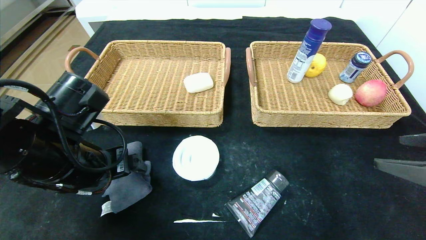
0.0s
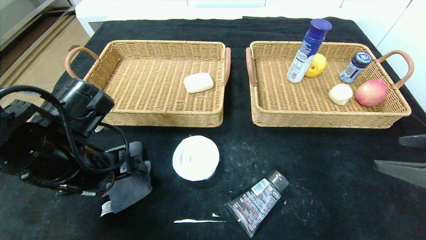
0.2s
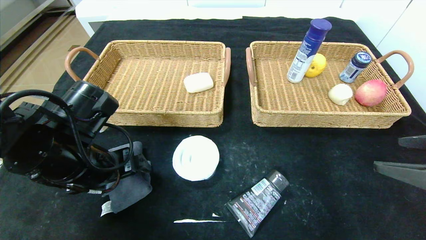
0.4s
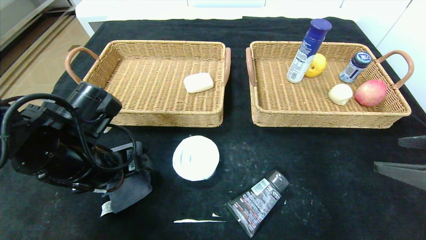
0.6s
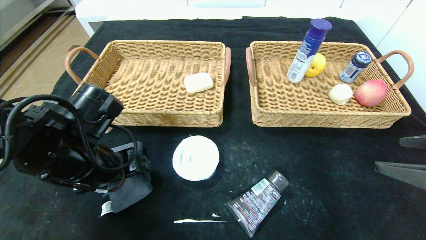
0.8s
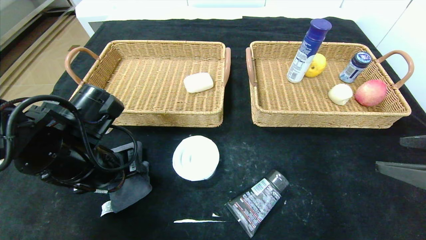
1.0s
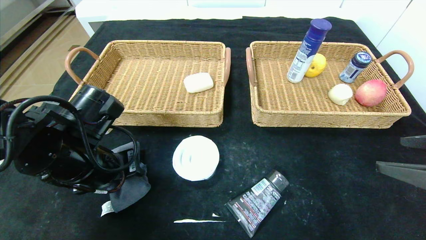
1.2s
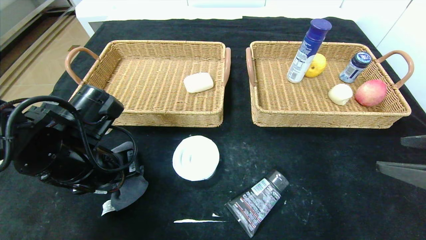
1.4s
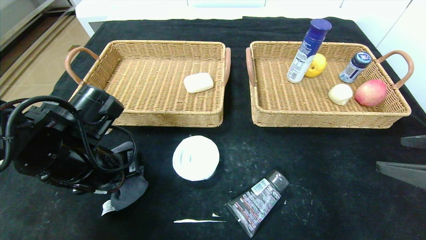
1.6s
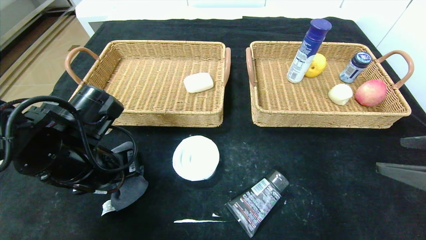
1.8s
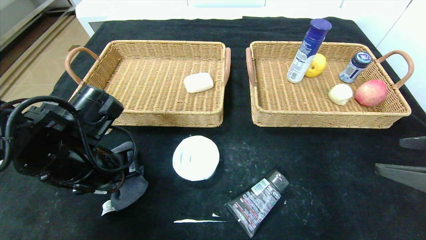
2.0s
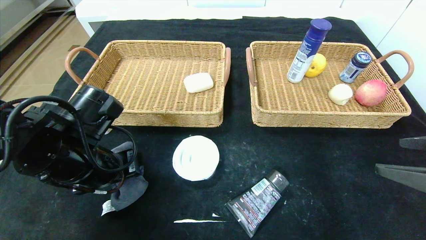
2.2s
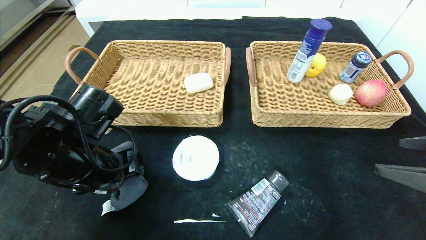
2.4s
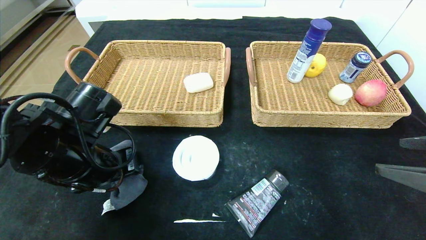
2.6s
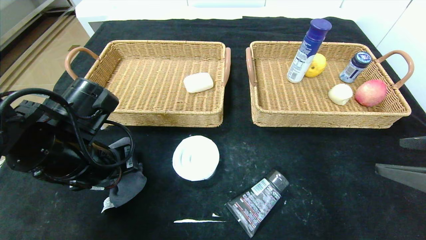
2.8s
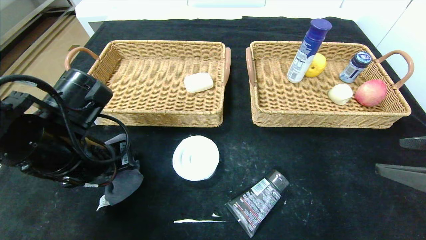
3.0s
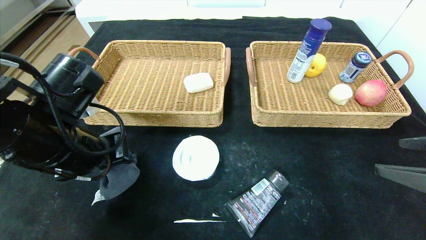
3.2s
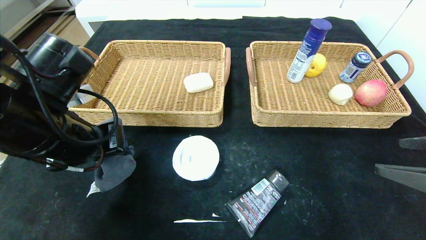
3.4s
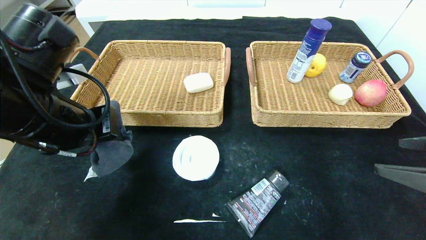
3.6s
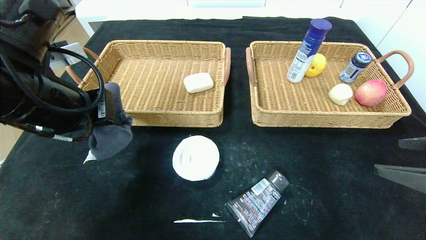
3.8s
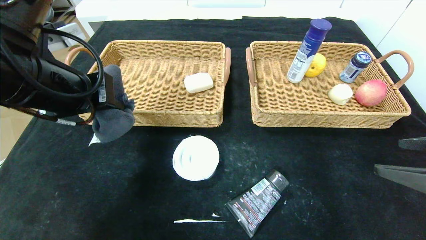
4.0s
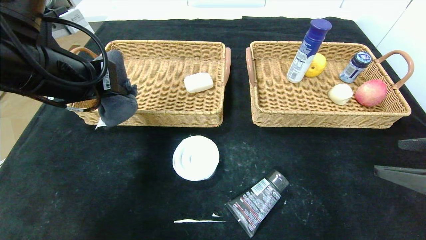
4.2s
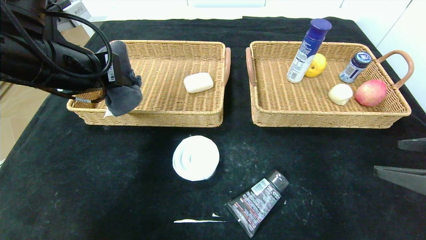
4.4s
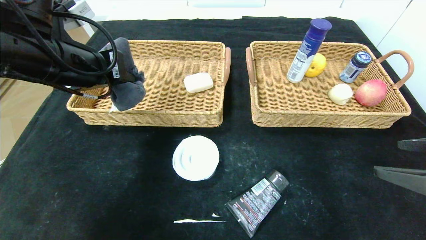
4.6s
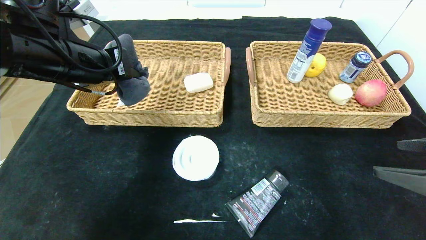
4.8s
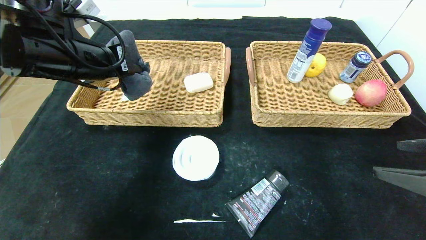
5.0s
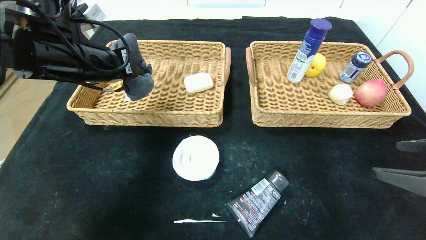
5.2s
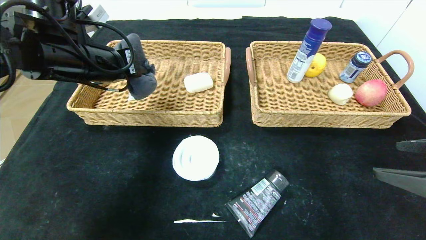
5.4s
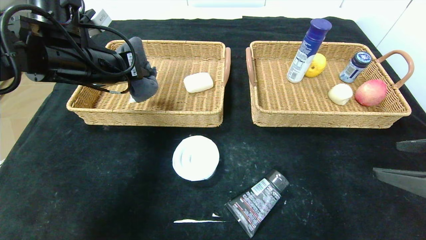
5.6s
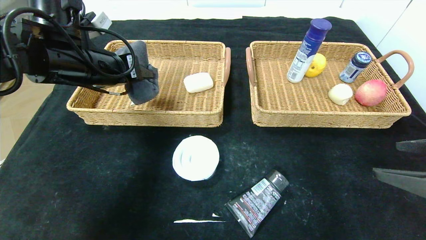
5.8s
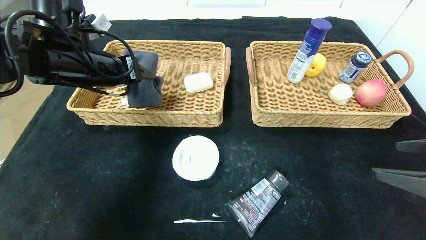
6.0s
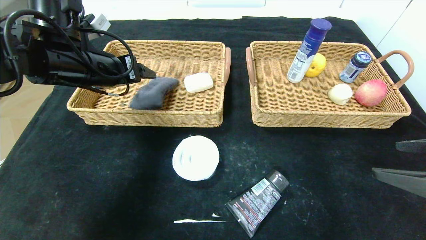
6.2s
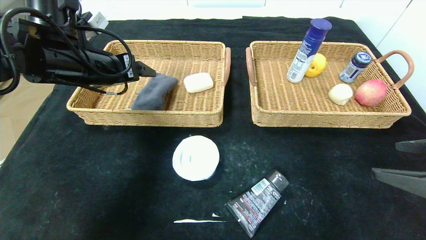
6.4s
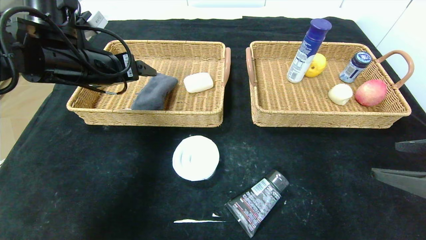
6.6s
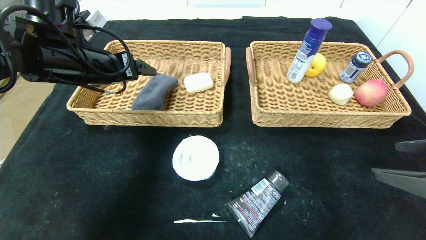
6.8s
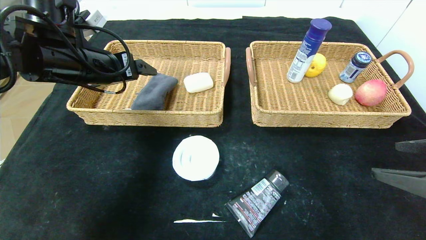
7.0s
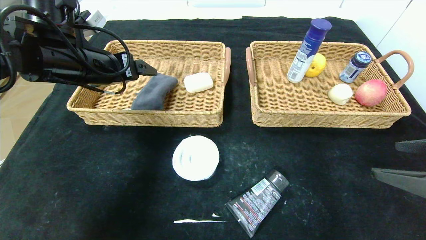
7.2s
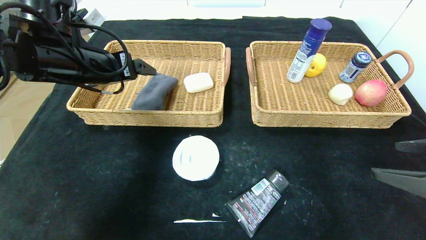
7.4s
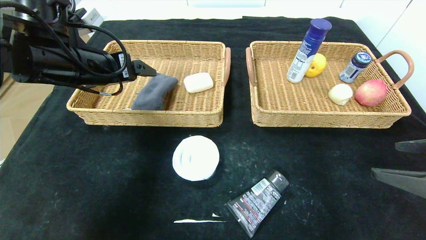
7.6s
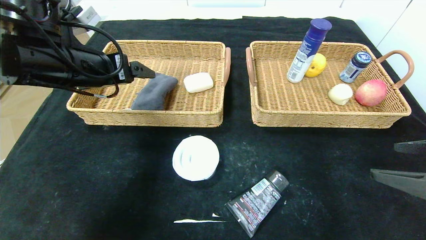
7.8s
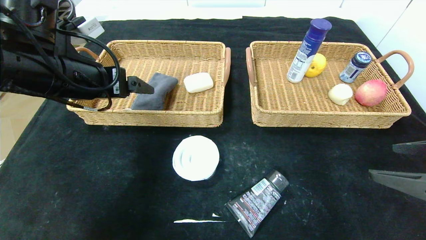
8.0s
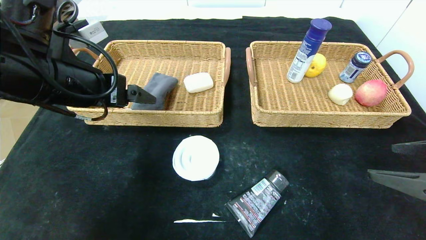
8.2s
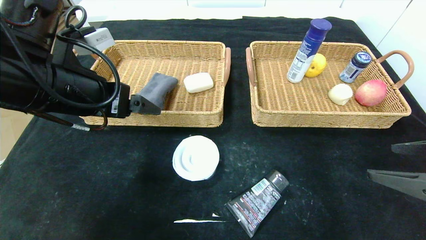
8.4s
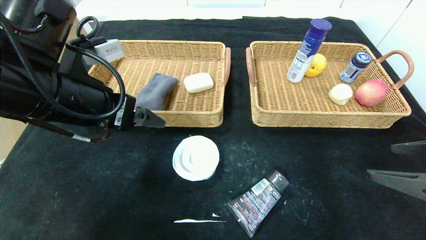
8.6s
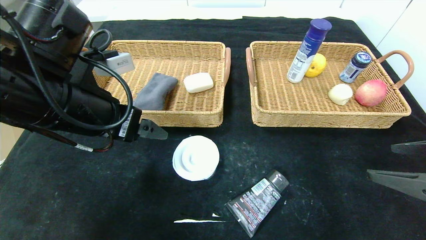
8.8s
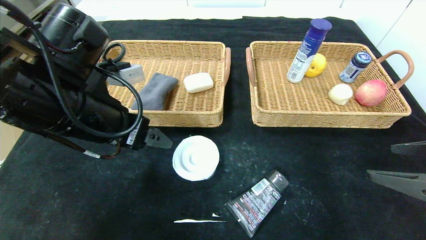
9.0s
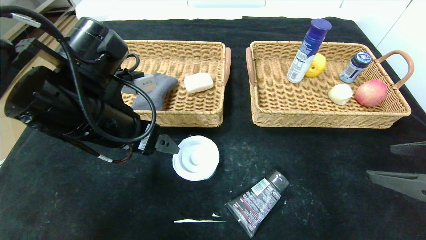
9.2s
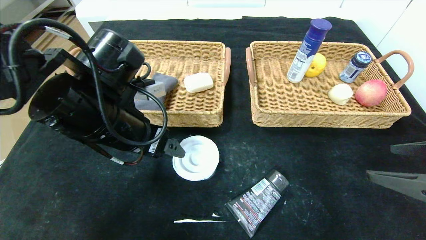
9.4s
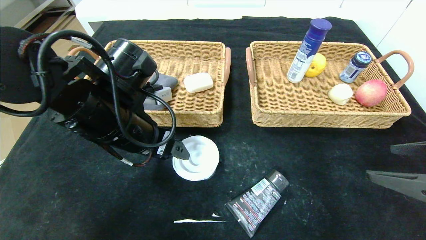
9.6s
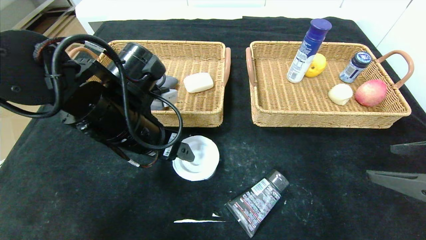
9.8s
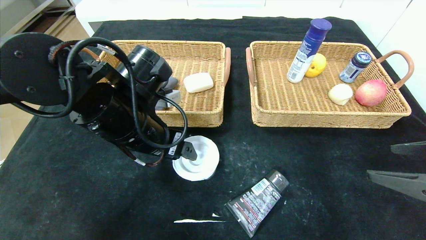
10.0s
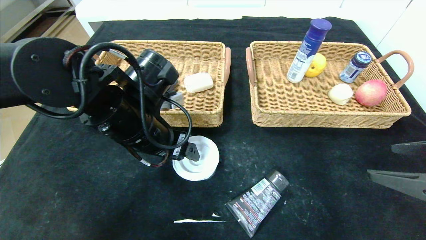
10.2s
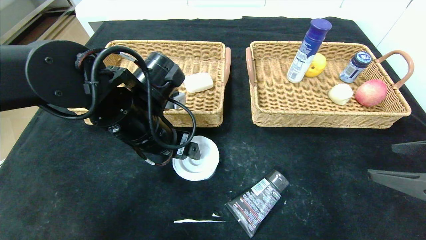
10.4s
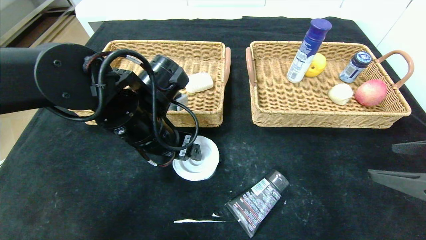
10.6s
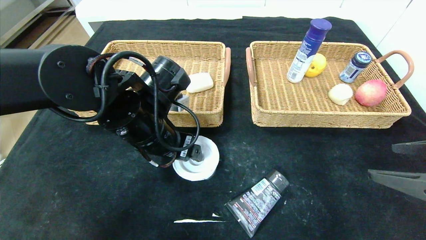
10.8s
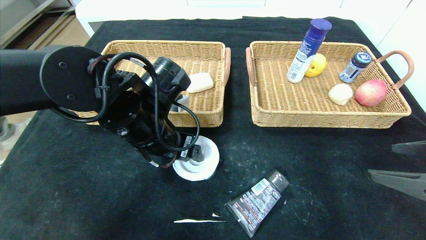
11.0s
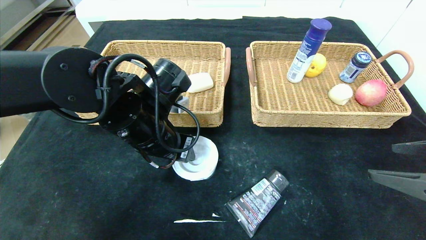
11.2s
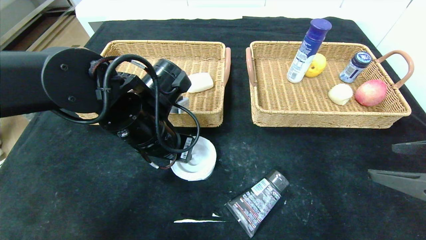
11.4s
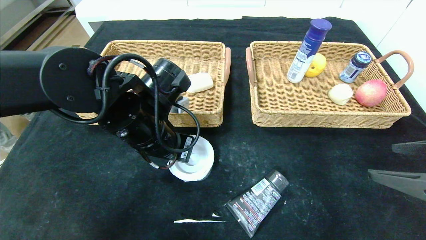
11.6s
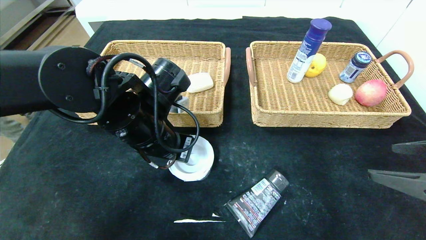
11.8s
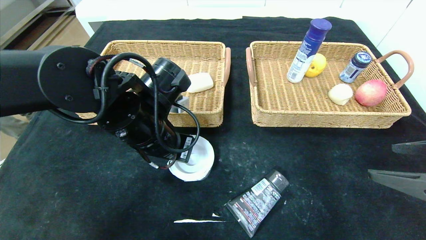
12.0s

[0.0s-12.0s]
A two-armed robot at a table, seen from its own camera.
Step, 0.0s to 9.0s: Pick up the gray towel and put it in the left basket.
0.0s to 1.6s: The left gripper closes.
1.6s to 3.0s: The grippers make only small movements.
3.0s to 4.4s: The left gripper goes some 10 cm upward.
4.4s to 6.0s: The left gripper goes approximately 5 cm forward, and opens up.
6.0s to 7.6s: The left gripper opens up.
7.6s to 9.0s: The left gripper is displaced backward and to the right by roughly 10 cm.
9.0s to 10.4s: The left gripper heads to the right, covering roughly 5 cm.
10.4s to 12.0s: The left gripper closes its fingers.

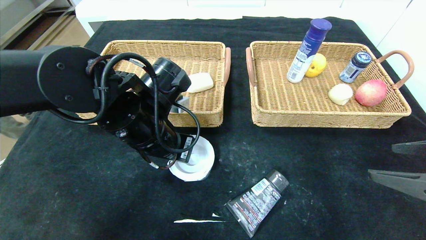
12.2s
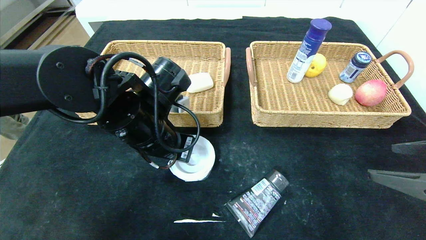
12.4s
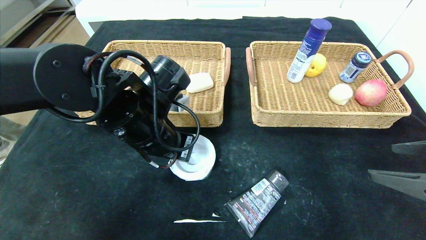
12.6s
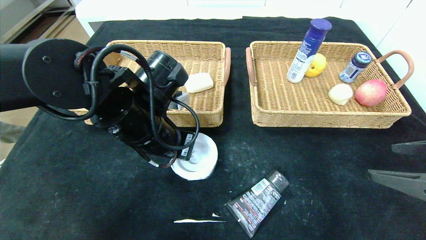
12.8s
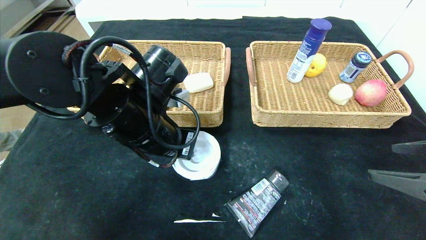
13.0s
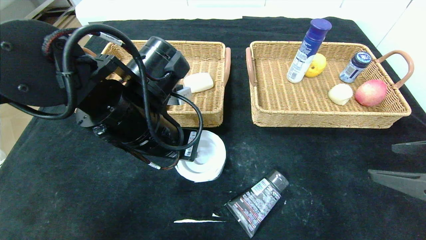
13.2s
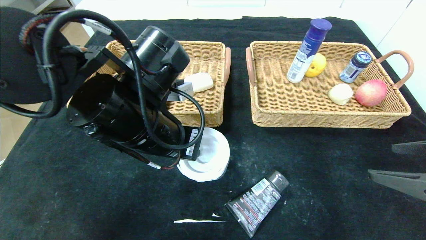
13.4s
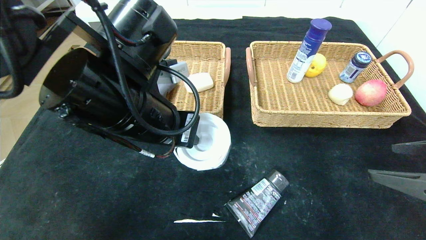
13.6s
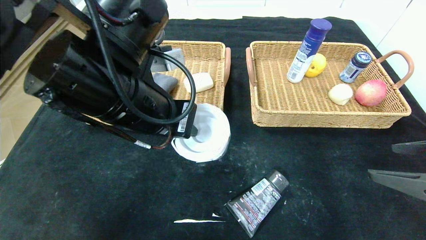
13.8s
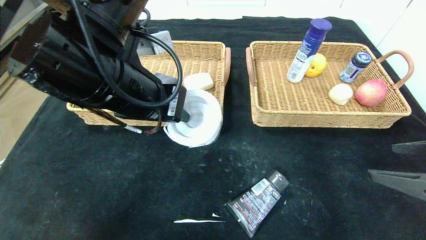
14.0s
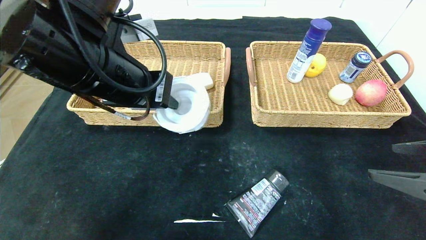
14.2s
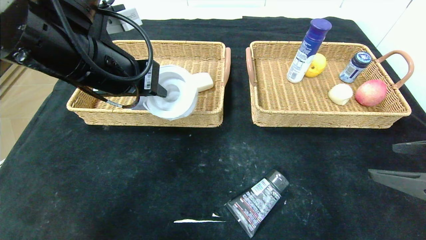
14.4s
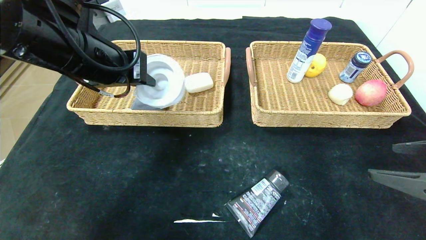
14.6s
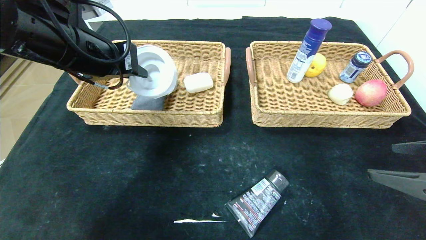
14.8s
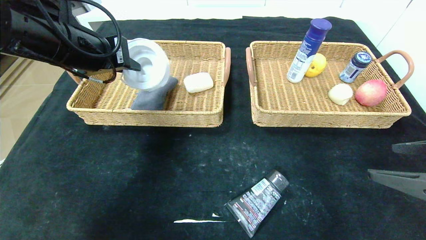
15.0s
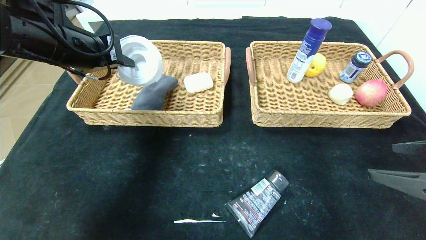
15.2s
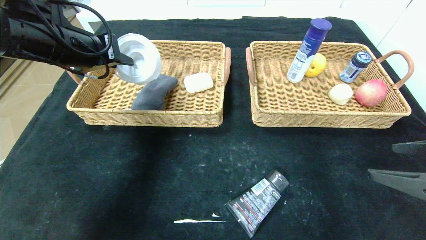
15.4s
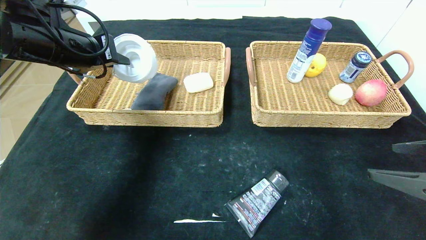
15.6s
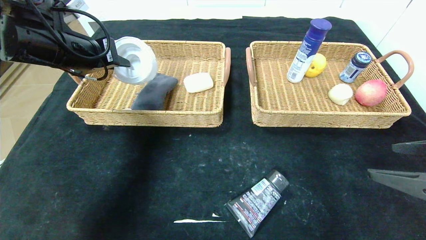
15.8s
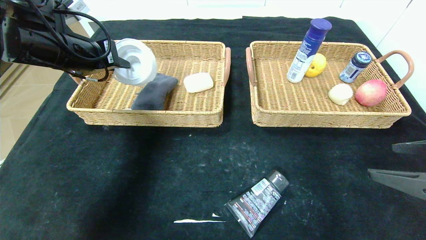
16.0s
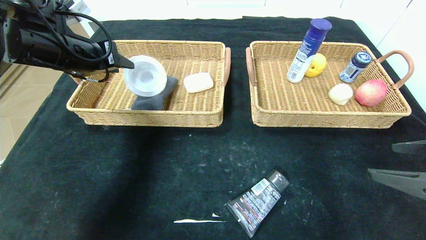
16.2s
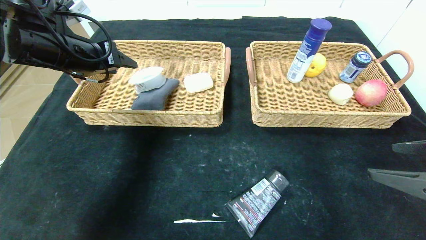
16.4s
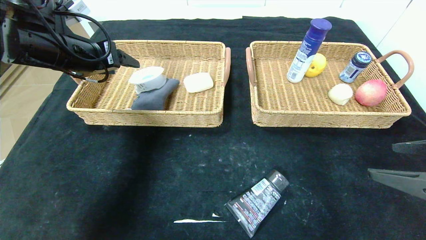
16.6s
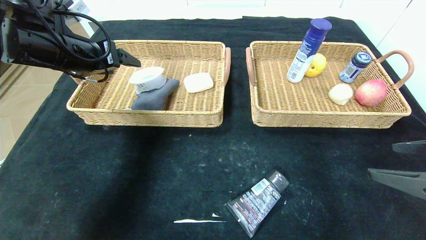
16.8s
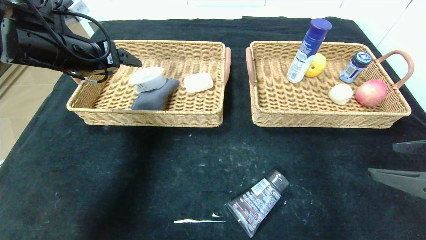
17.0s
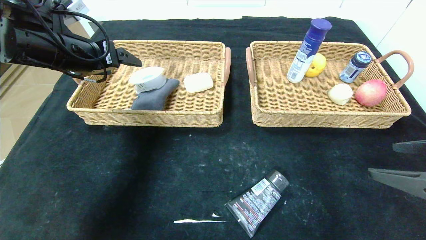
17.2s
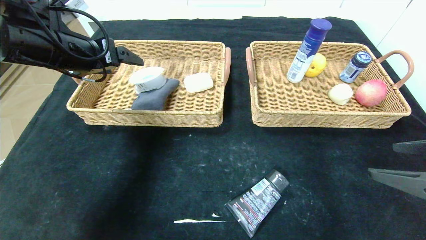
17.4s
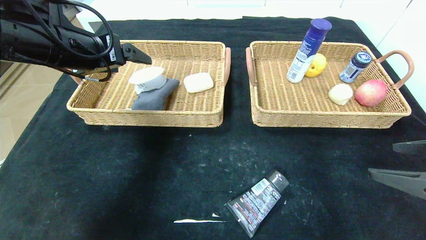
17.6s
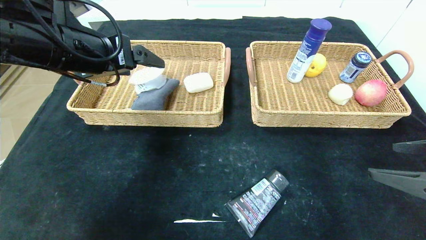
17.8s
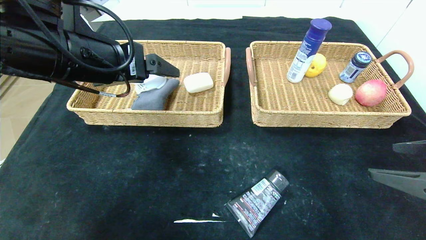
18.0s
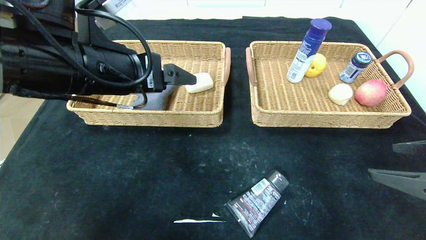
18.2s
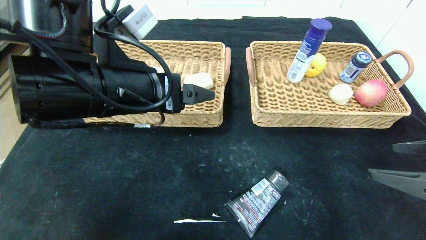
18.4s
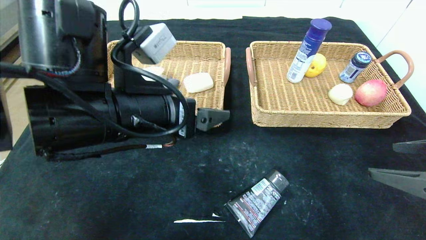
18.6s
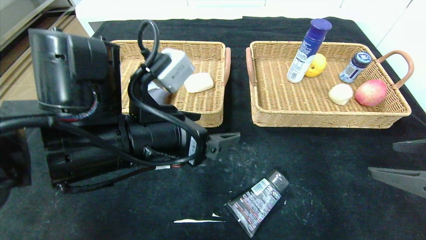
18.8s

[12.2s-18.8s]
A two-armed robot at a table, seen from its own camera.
12.2s to 13.8s: The left gripper heads upward, covering approximately 10 cm.
13.8s to 15.4s: The left gripper shifts about 15 cm to the left and forward.
15.4s to 17.2s: The left gripper opens.
17.2s to 18.8s: The left gripper heads to the right, backward and downward, covering approximately 25 cm.
